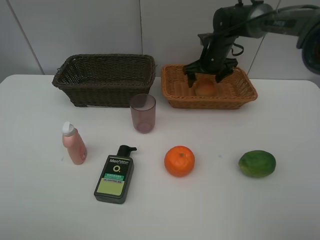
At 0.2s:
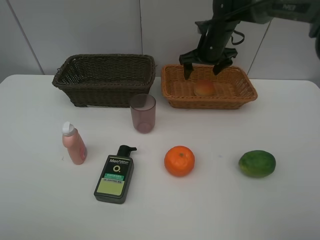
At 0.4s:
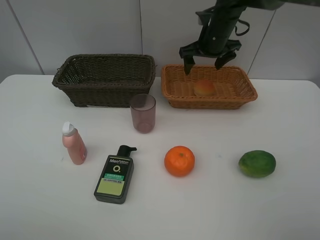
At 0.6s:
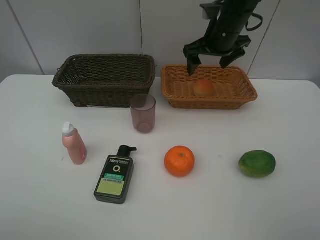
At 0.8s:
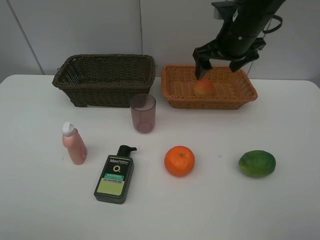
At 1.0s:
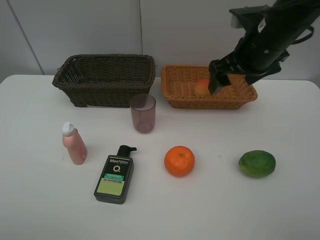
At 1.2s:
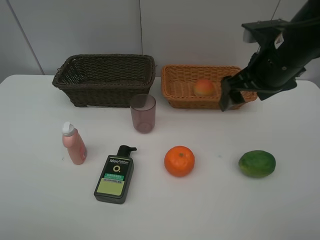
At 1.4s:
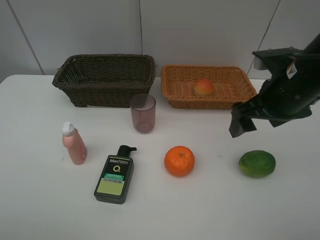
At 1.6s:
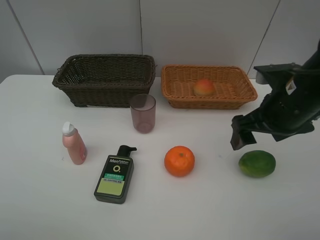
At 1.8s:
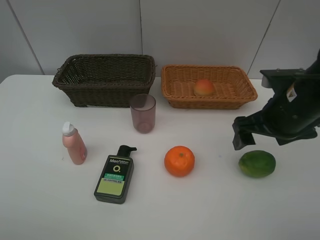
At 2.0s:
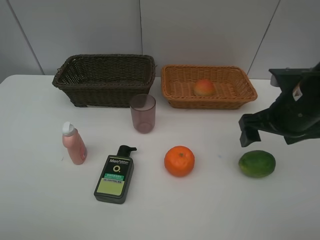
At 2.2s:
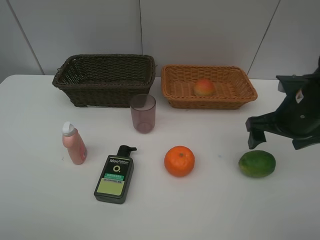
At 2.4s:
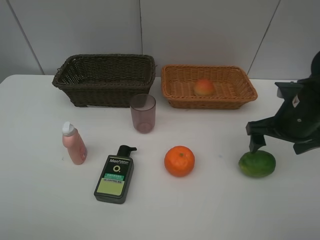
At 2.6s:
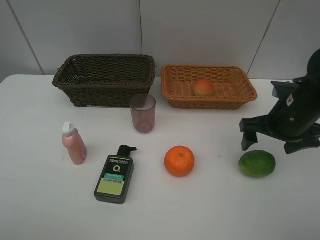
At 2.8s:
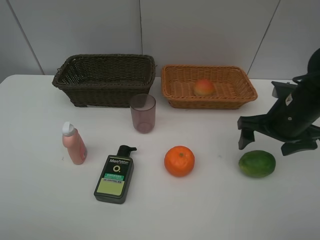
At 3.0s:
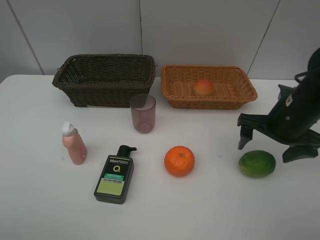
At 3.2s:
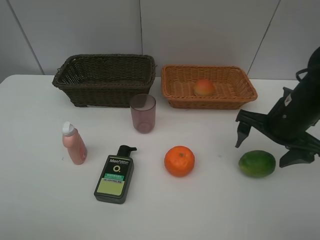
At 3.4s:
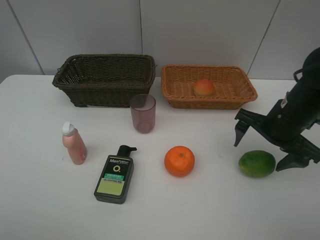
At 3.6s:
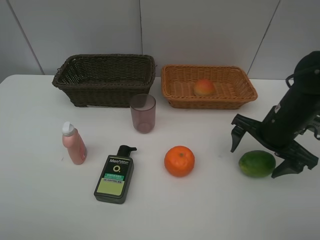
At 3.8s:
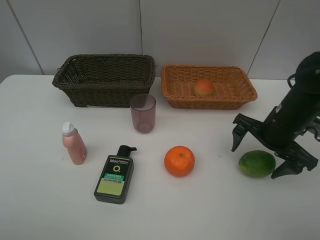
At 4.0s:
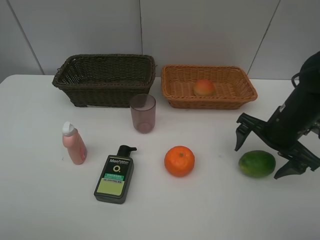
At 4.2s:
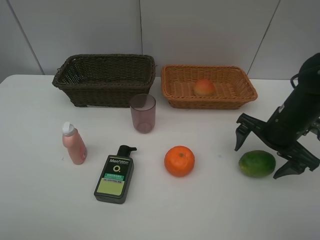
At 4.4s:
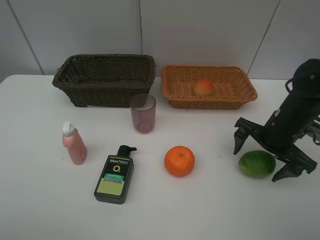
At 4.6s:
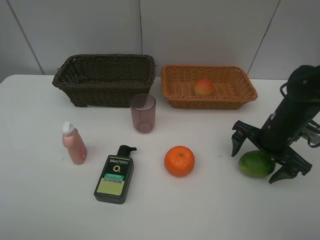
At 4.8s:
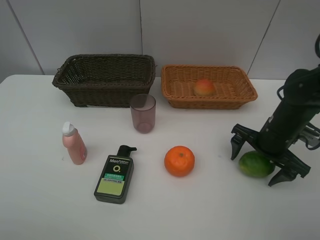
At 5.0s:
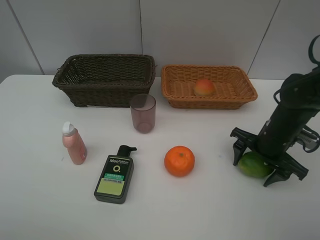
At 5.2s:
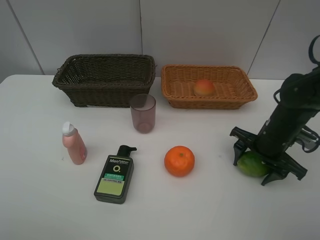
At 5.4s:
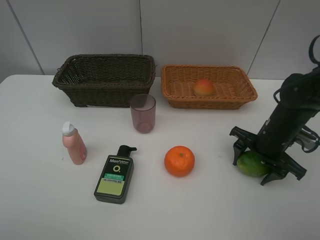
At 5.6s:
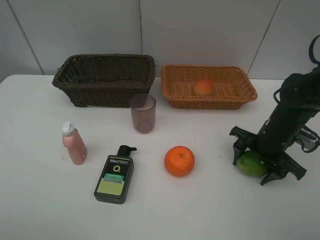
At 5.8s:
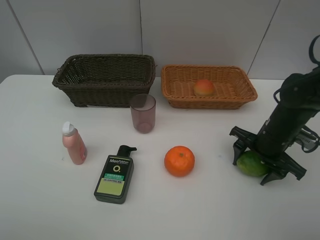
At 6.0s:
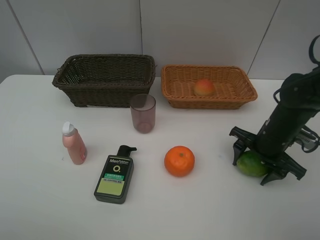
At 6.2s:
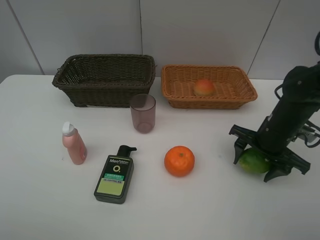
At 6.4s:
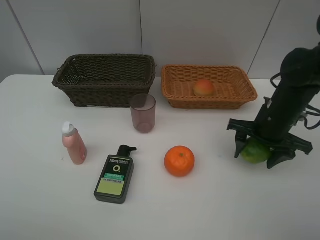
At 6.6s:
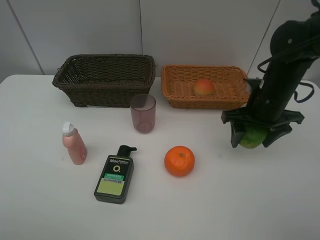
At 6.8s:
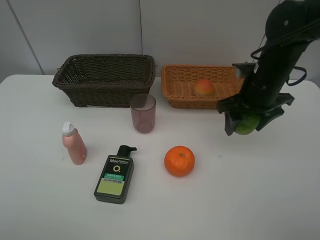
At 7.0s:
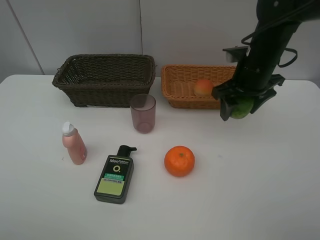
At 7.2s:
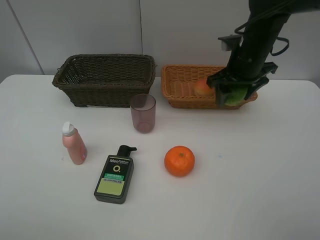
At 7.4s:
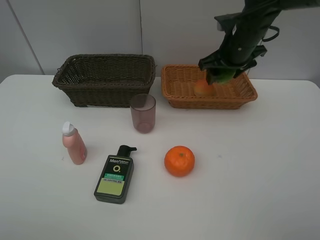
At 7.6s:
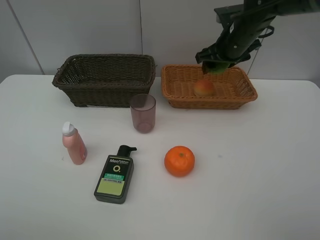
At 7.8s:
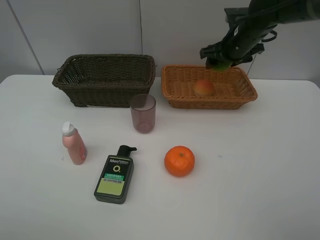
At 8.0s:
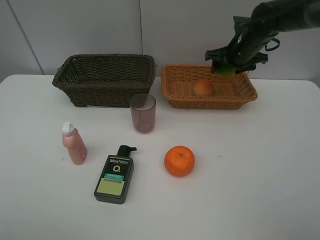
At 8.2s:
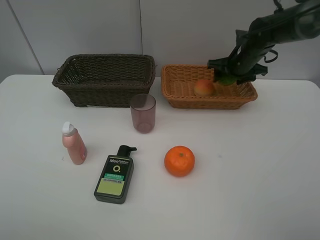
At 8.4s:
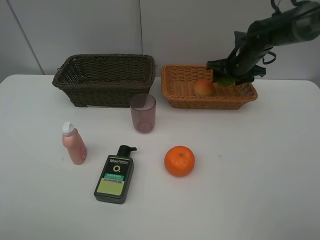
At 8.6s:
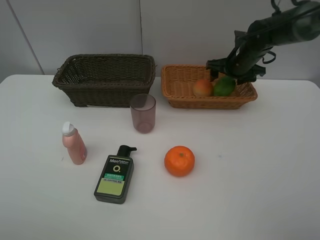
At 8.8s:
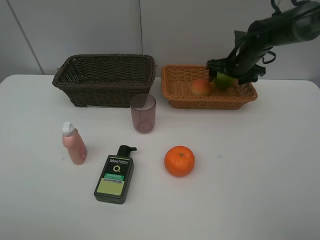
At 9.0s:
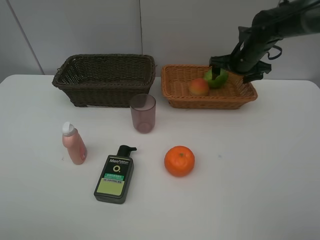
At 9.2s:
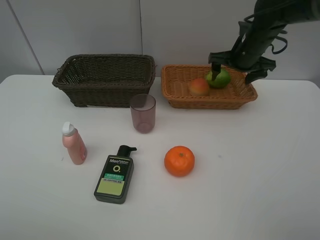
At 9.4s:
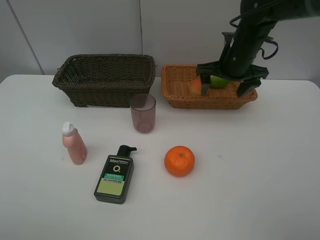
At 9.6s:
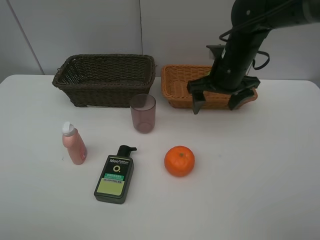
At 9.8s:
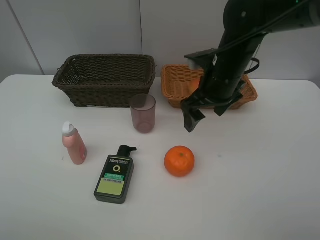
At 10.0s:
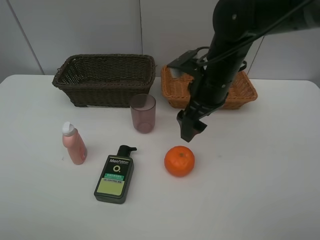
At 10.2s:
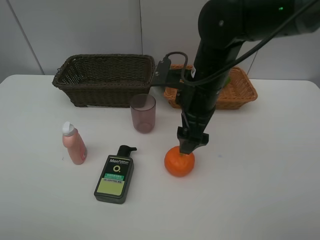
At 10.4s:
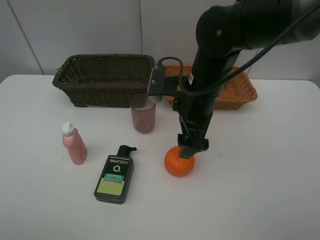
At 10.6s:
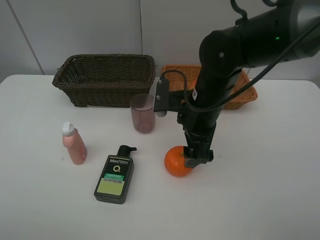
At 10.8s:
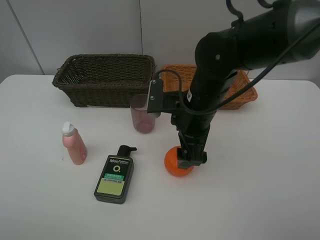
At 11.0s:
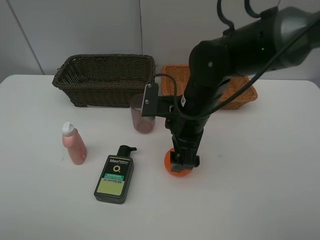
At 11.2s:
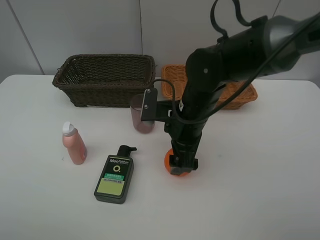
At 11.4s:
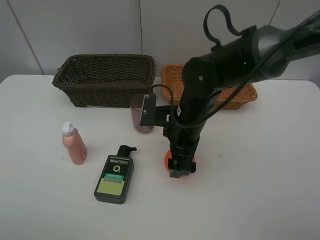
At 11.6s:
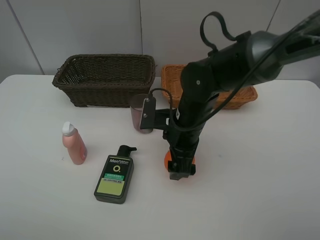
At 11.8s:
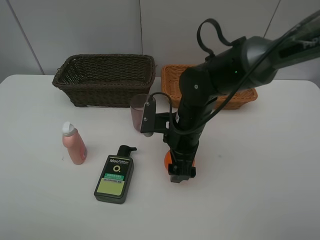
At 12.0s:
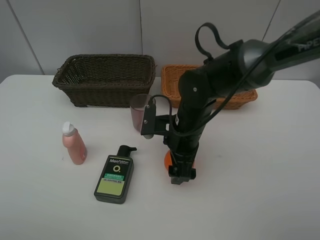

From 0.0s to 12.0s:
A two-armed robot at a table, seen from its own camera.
Task of the whole recording: place multiple objects separately in different baskets.
From 0.0s to 1.6s: The right gripper heads backward, covering some 25 cm.
From 1.6s to 3.0s: The right gripper changes place by some 5 cm.
From 4.4s to 6.0s: The right gripper closes up.
From 6.0s to 7.6s: The right gripper moves forward, upward and to the left, some 20 cm.
From 7.6s to 9.0s: The right gripper moves some 5 cm, and opens up.
From 9.0s to 10.4s: The right gripper goes approximately 25 cm backward and to the left.
From 10.4s to 12.0s: The right gripper shifts about 10 cm downward.

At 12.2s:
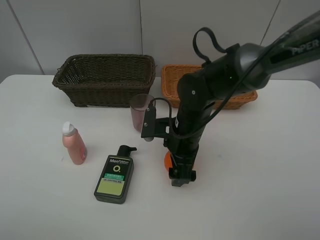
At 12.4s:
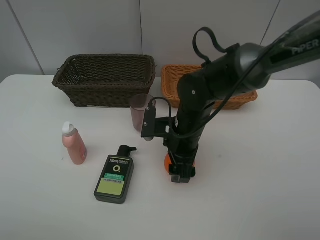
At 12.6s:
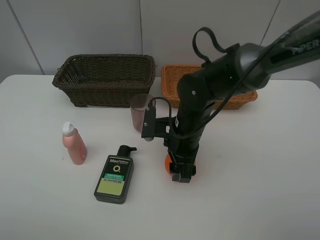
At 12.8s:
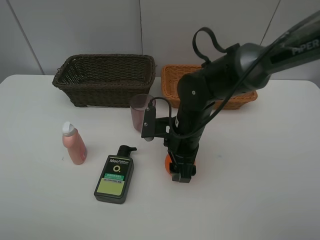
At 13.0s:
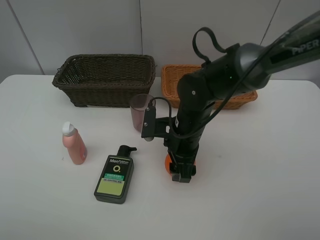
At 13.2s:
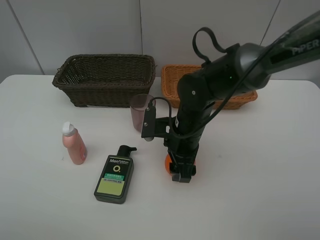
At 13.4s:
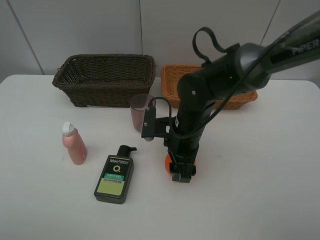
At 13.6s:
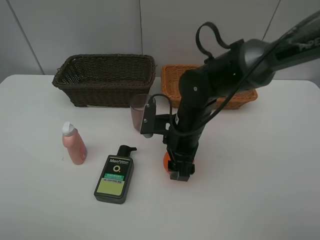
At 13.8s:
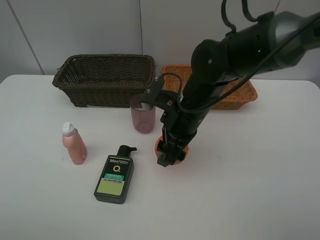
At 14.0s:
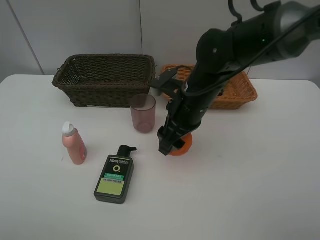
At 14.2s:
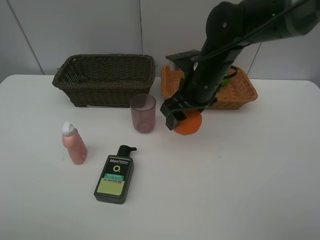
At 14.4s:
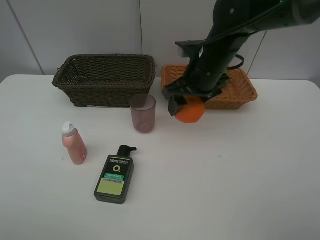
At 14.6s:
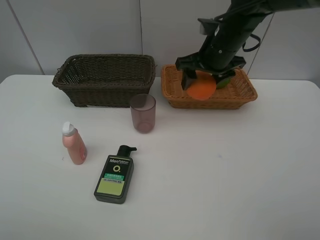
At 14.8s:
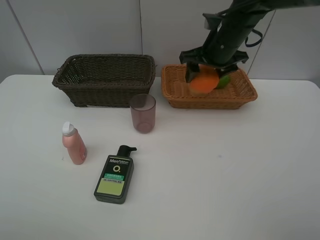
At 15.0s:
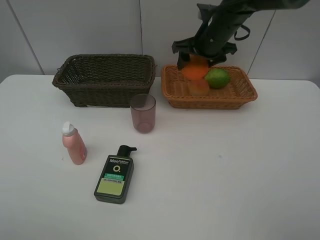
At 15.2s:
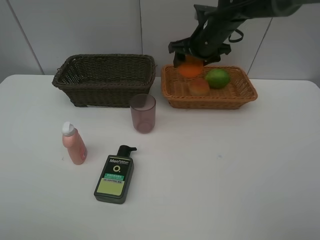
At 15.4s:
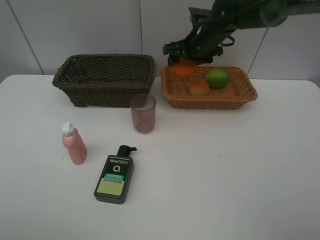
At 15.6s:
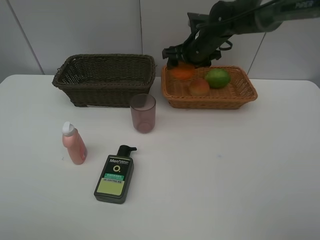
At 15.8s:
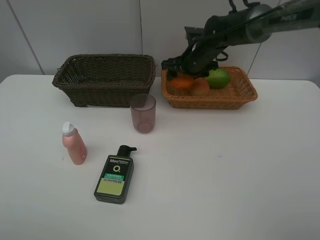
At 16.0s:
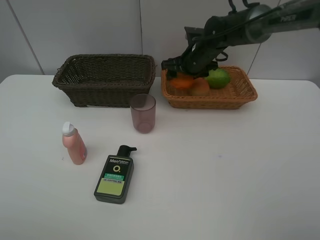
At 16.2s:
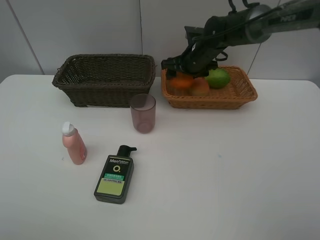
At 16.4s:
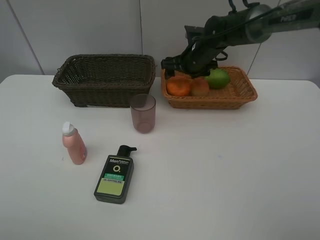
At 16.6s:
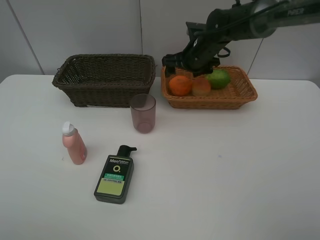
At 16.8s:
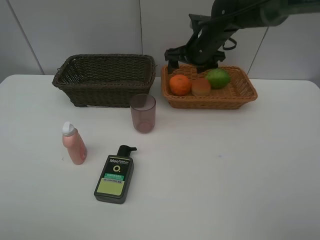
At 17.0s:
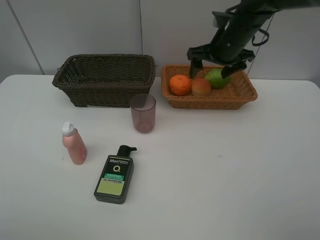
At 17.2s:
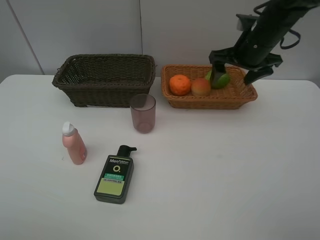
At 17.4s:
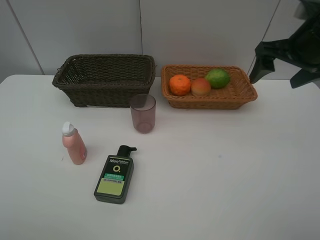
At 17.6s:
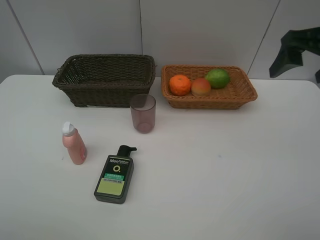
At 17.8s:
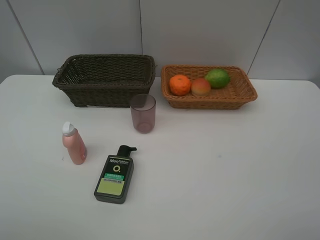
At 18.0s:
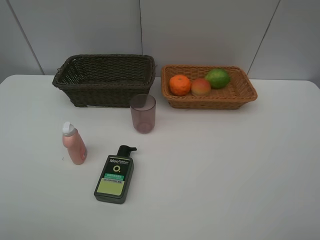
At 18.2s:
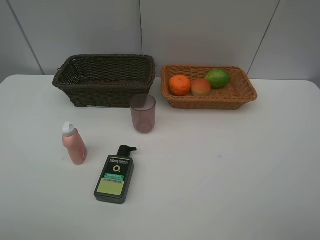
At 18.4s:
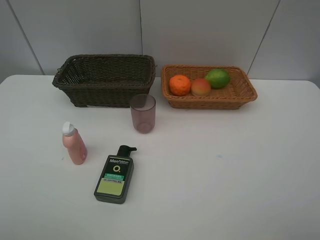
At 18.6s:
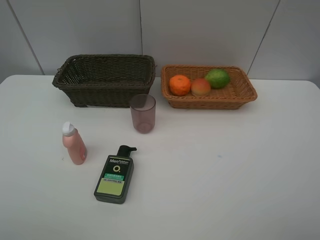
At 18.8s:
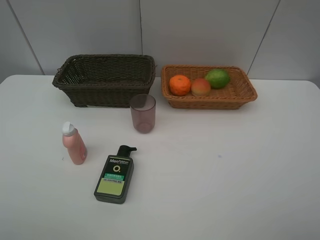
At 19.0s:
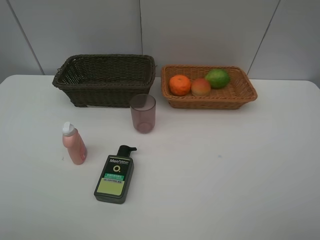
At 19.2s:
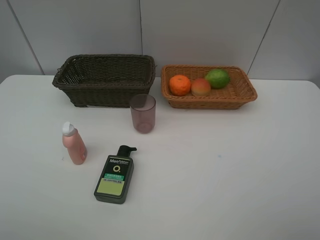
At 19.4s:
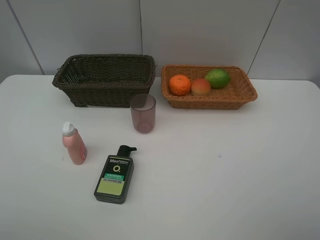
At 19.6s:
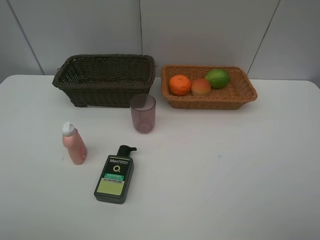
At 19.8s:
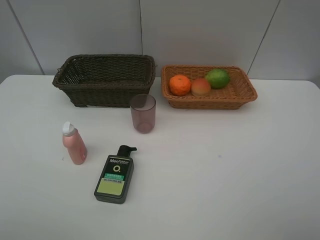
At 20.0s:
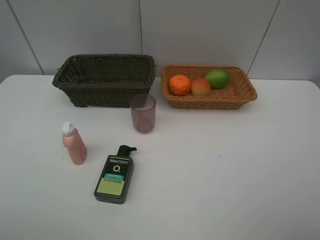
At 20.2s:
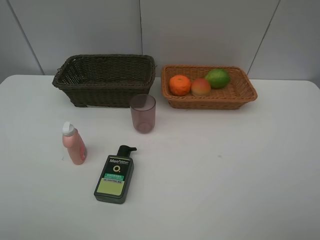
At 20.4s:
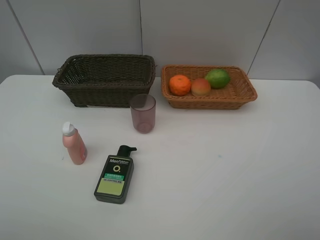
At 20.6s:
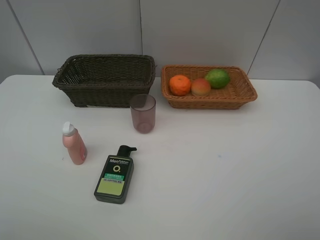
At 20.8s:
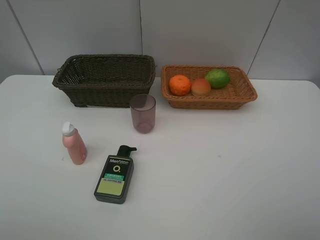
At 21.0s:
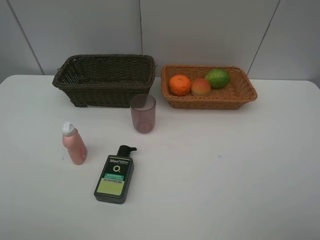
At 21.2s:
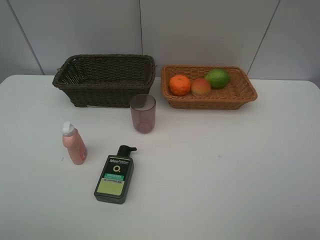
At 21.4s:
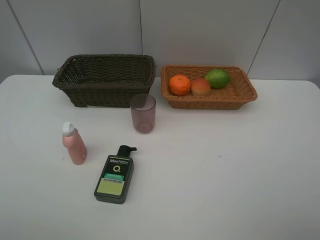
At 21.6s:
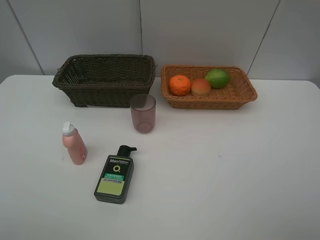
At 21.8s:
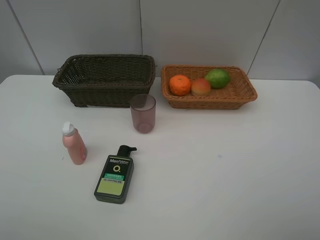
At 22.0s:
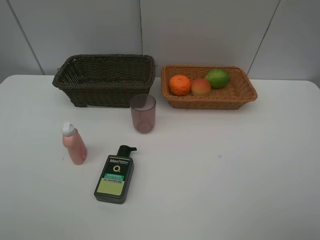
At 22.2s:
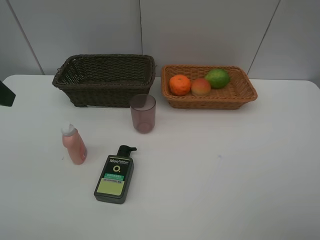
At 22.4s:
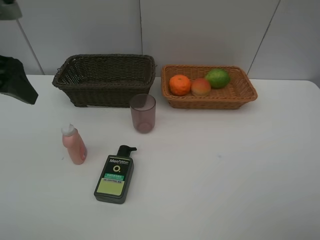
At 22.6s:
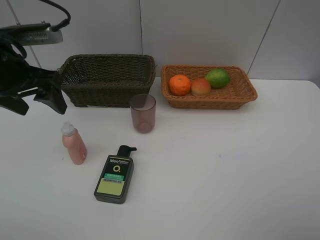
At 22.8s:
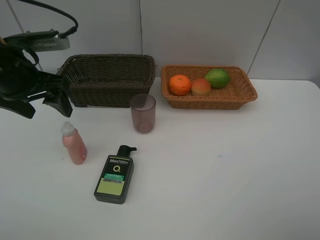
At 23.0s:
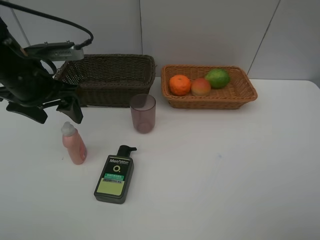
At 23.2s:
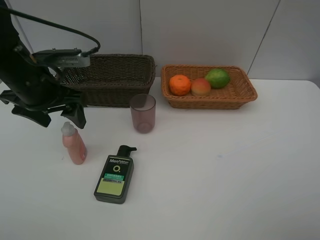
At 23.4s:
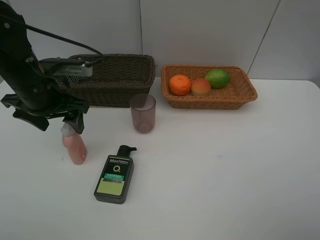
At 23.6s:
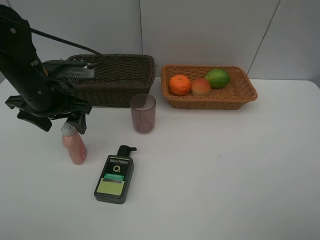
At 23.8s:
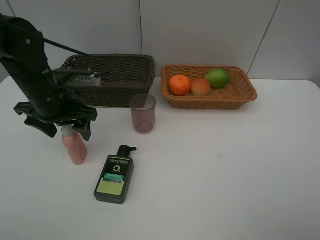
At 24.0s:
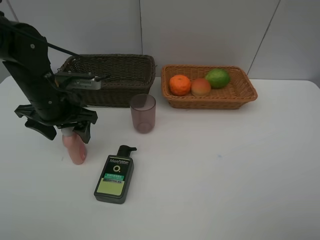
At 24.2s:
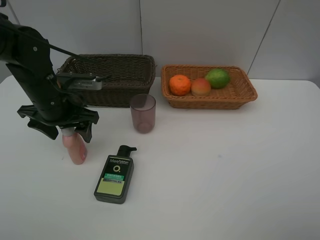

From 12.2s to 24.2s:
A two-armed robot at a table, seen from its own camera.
Task of the whole recording: place multiple objects separately in different baskets.
From 12.2s to 13.8s: The right gripper closes its fingers.
From 13.8s to 15.2s: The right gripper goes roughly 15 cm forward.
From 15.2s to 16.6s: The right gripper opens.
From 16.6s to 18.2s: The right gripper is displaced backward, to the right and upward by roughly 50 cm.
From 19.8s to 21.2s: The two grippers keep their place.
From 21.2s to 22.6s: The left gripper shifts approximately 25 cm forward.
From 22.6s to 24.2s: The left gripper travels downward by about 10 cm.
